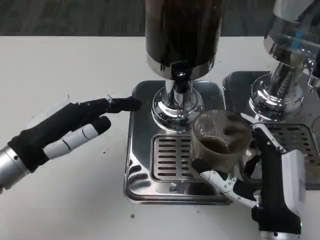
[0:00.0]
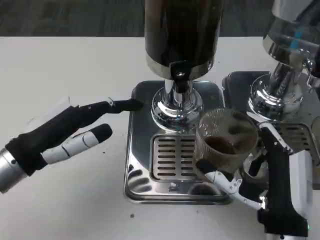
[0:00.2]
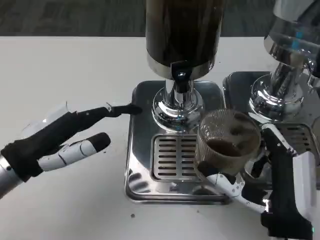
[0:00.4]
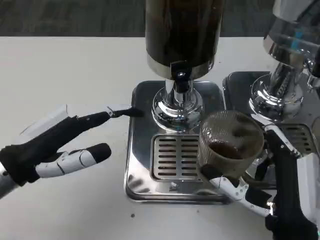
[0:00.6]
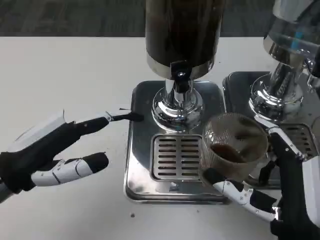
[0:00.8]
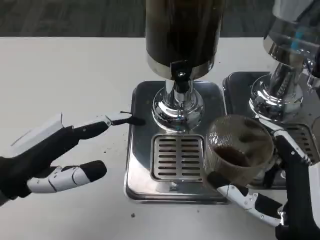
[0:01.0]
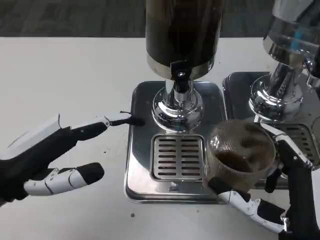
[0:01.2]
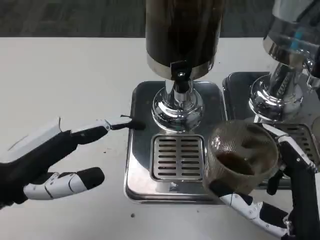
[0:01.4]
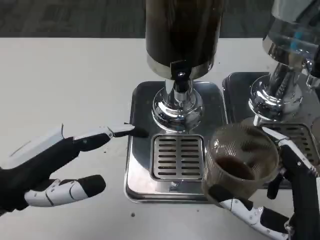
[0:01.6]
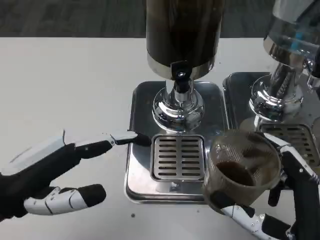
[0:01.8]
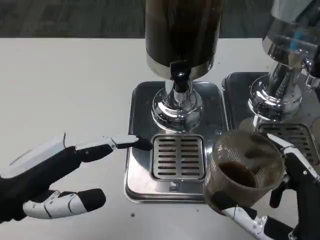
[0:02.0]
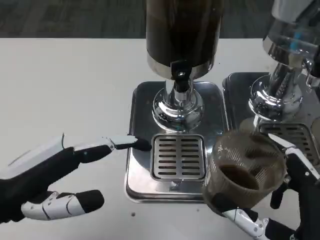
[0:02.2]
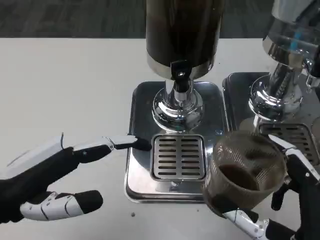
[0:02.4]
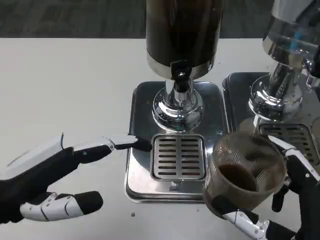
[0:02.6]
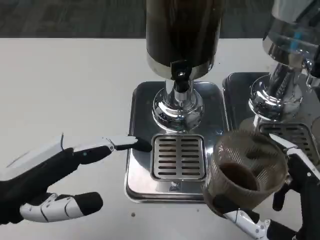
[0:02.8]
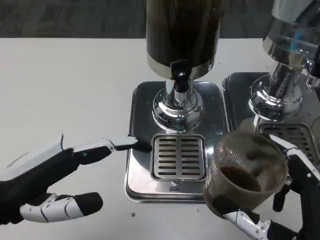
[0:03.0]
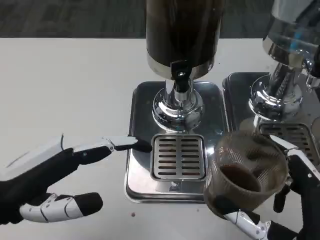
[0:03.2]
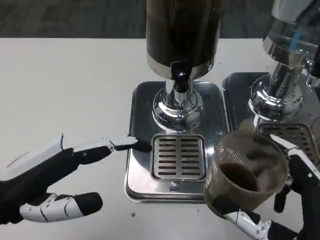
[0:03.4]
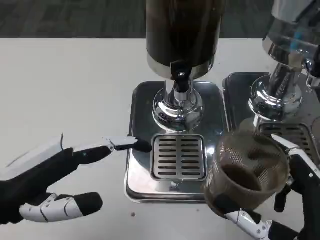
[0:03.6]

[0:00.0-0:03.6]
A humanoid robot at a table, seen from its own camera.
Task of the whole recording: Grasp the cup under the faucet to collect the drink, then remove the cup.
0:00.0 to 0:01.8: The hands both shift backward by some 5 cm.
0:01.8 to 0:03.6: The hands move only a little.

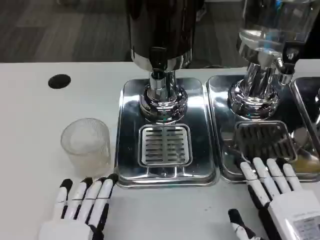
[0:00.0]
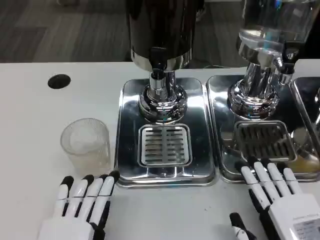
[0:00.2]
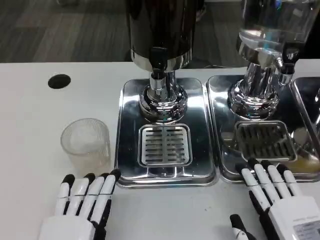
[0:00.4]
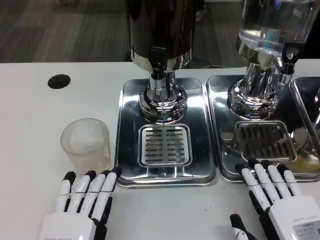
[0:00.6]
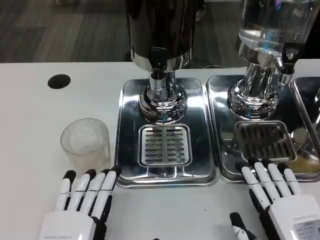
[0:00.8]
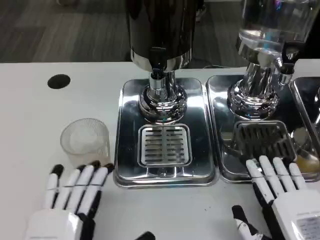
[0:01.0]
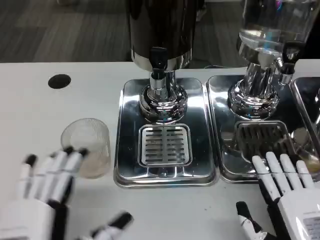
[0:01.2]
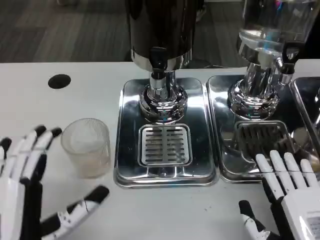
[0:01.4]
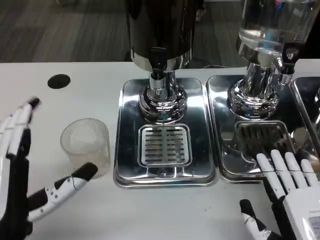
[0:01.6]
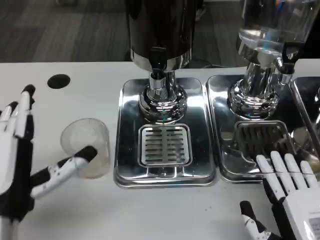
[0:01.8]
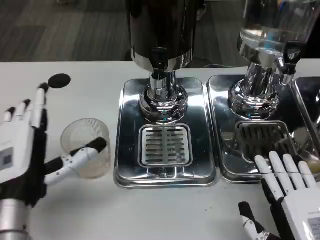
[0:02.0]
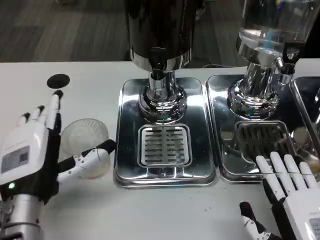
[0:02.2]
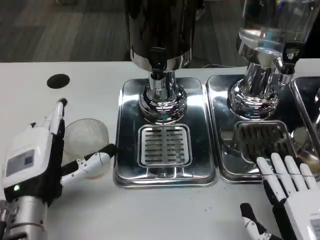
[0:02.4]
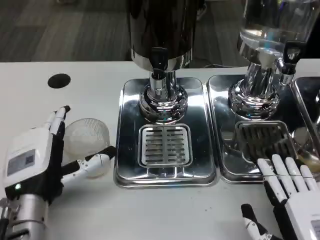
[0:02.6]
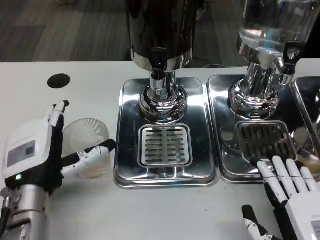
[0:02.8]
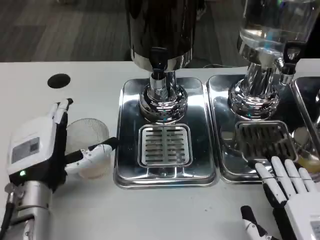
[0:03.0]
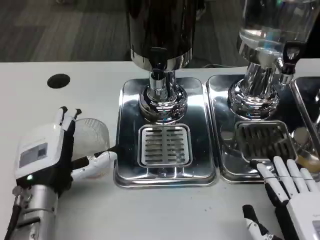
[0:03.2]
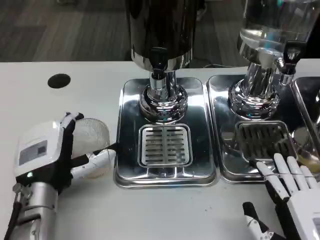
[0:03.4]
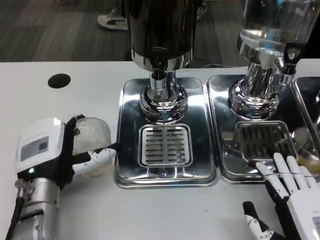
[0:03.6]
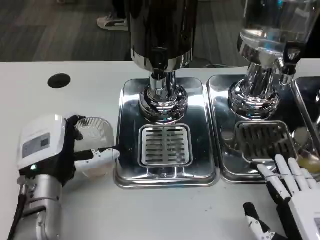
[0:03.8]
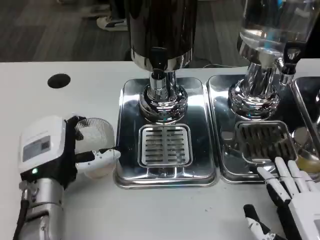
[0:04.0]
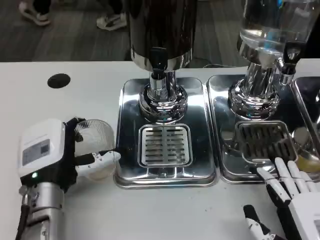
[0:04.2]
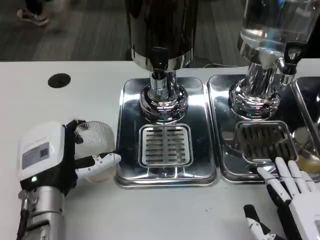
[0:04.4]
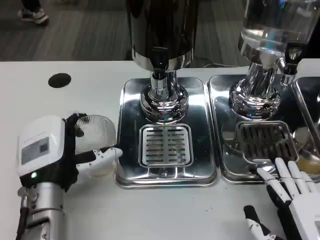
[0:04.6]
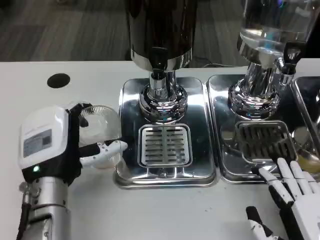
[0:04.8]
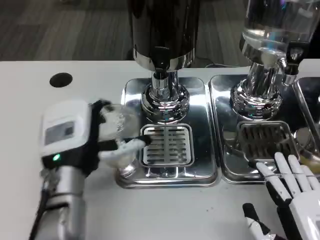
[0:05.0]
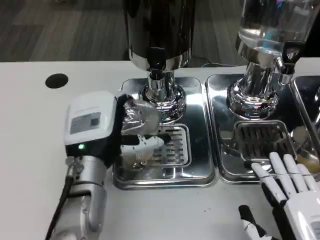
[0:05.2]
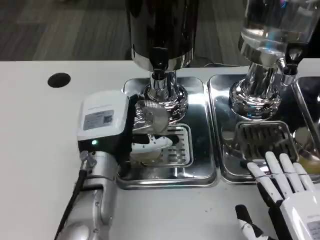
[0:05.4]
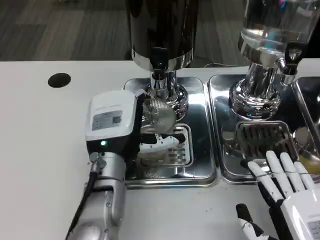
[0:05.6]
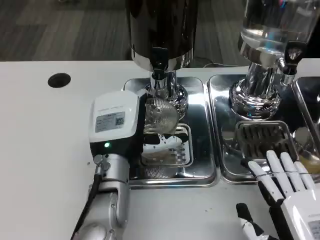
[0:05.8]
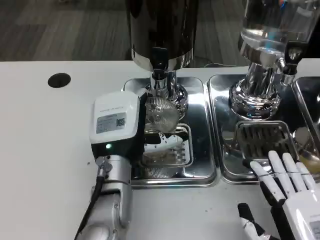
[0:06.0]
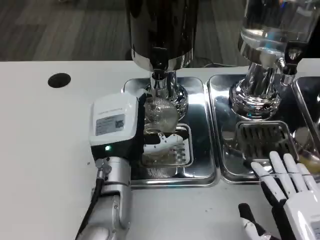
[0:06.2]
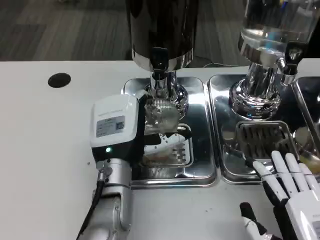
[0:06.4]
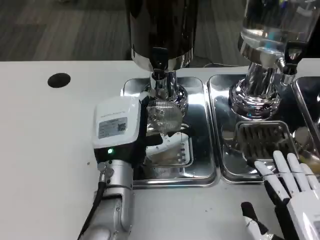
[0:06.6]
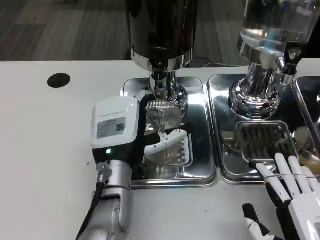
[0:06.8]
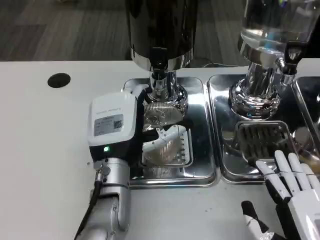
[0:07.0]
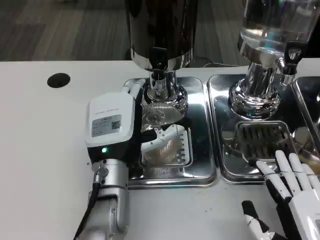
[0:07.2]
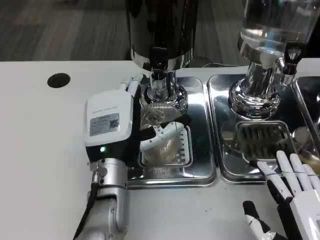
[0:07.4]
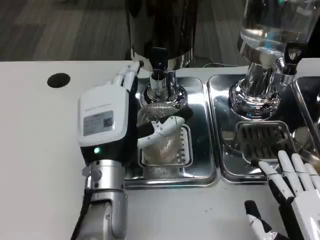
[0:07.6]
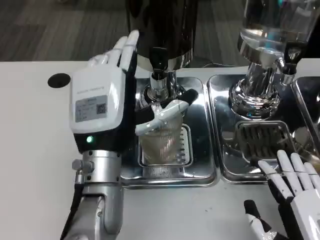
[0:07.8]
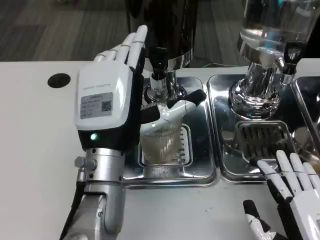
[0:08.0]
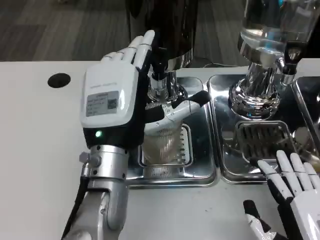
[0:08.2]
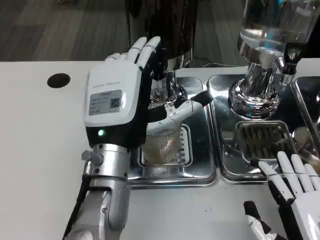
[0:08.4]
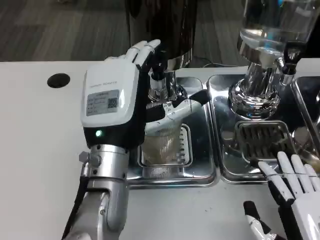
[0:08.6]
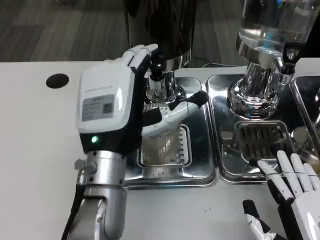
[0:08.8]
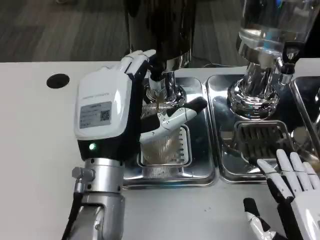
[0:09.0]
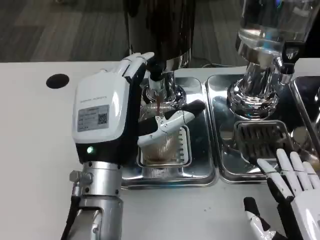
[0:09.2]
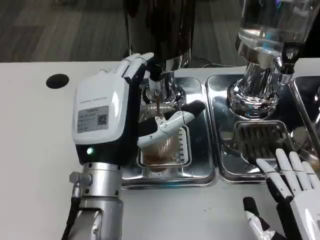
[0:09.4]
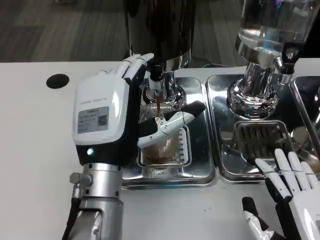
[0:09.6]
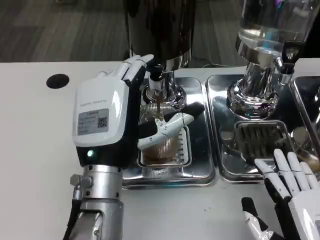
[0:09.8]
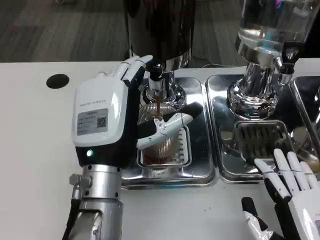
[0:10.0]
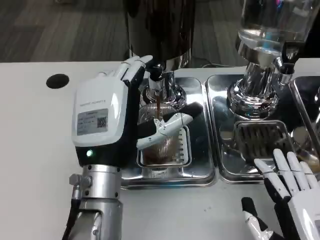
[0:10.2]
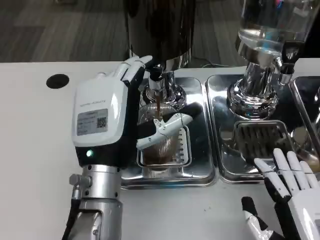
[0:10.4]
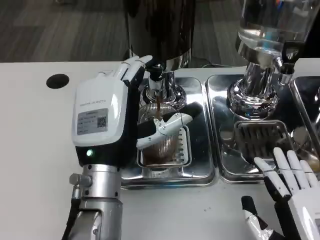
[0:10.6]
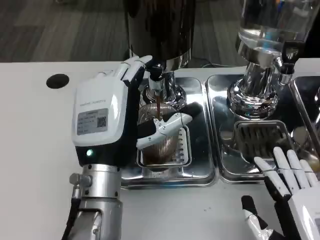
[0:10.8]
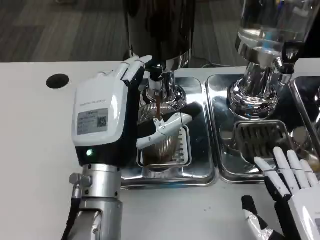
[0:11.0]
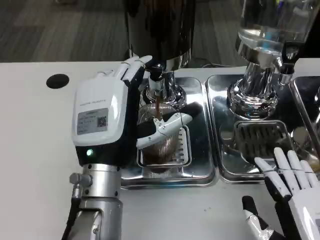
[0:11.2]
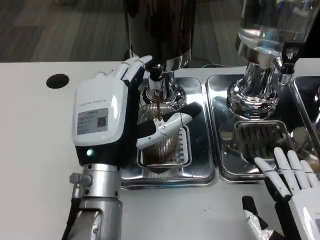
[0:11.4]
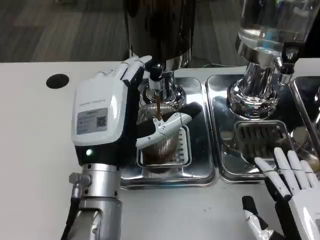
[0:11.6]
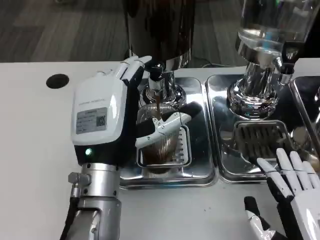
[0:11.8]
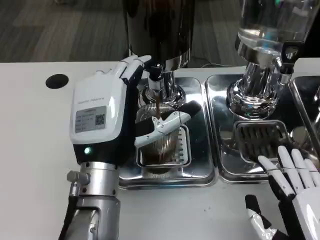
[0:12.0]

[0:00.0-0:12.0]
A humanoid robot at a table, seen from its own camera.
Task of the whole recording: Grasp the cup under the faucet to collect the drink, then remove the cup.
0:00.0 to 0:01.6: The left hand moves forward, upward and to the left, roughly 10 cm.
0:01.6 to 0:03.0: The left hand shifts approximately 10 cm forward.
0:03.0 to 0:04.4: The hands make only small movements.
0:04.4 to 0:06.0: The left hand travels to the right by some 10 cm.
0:06.0 to 0:07.6: The hands stay close to where they were, moving slightly.
0:07.6 to 0:09.0: The hands make only small movements.
0:09.0 to 0:12.0: Both hands stay put.

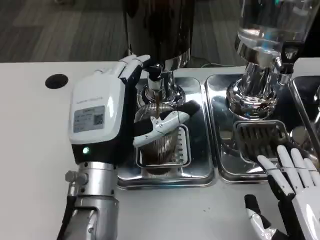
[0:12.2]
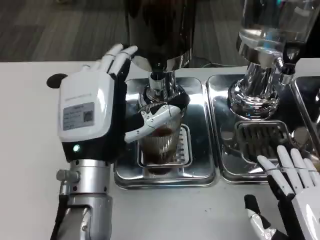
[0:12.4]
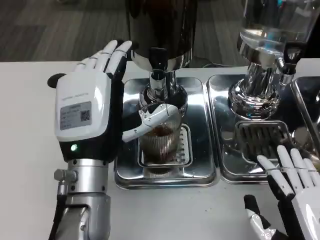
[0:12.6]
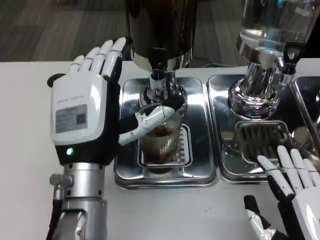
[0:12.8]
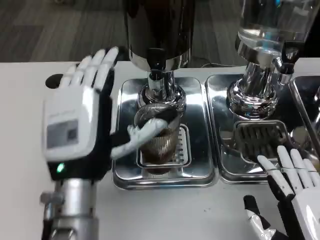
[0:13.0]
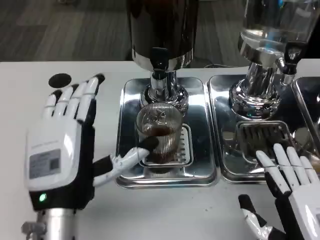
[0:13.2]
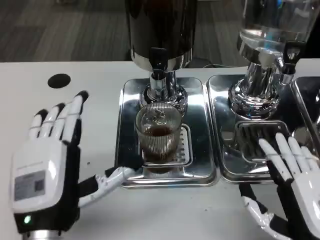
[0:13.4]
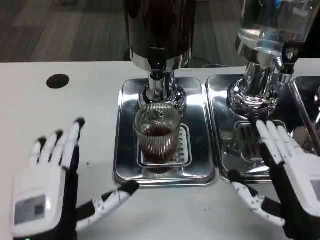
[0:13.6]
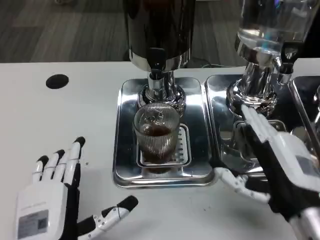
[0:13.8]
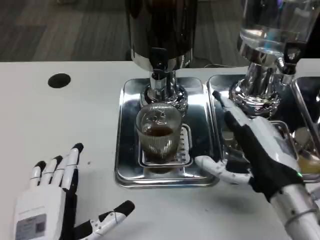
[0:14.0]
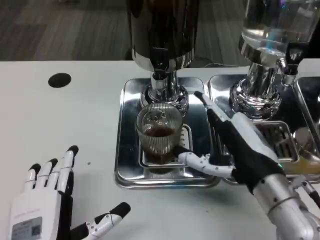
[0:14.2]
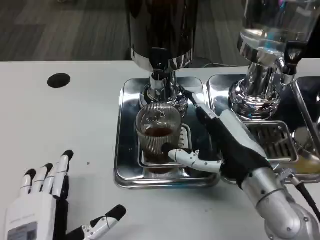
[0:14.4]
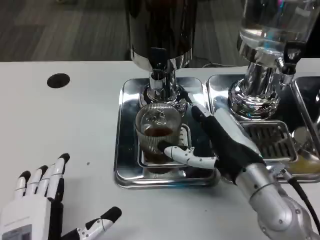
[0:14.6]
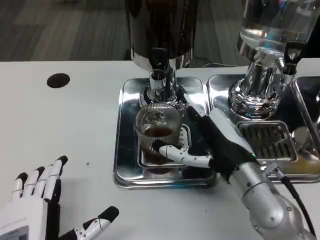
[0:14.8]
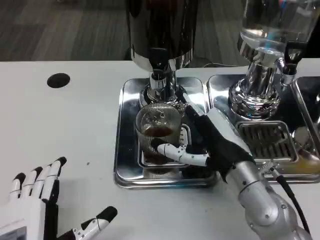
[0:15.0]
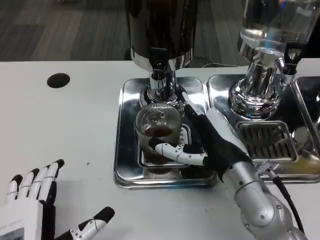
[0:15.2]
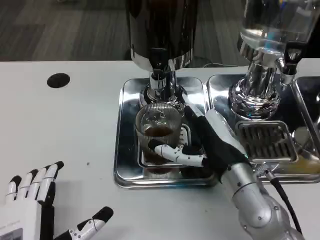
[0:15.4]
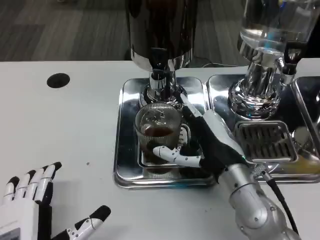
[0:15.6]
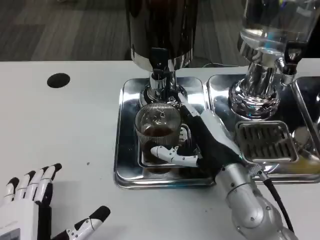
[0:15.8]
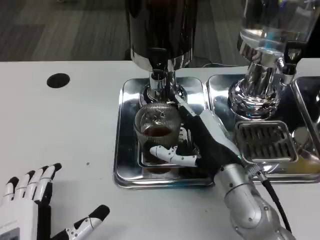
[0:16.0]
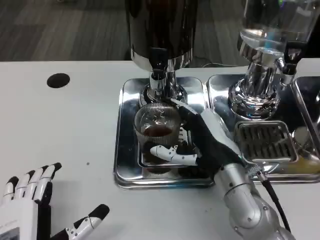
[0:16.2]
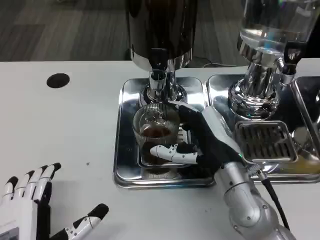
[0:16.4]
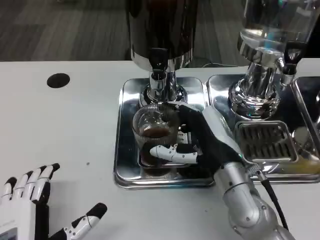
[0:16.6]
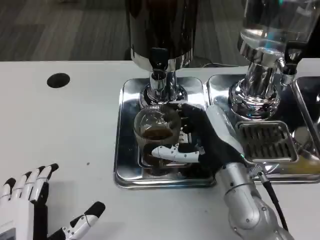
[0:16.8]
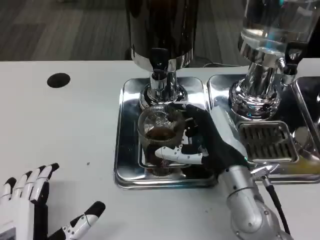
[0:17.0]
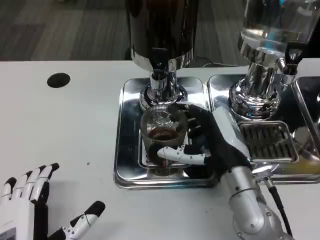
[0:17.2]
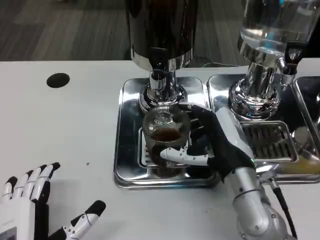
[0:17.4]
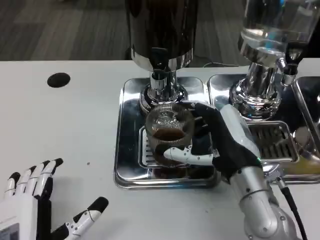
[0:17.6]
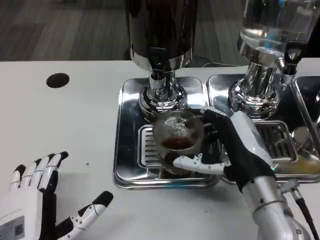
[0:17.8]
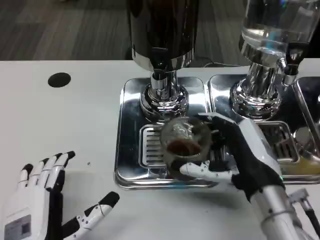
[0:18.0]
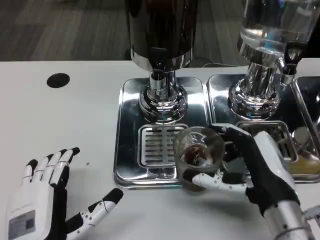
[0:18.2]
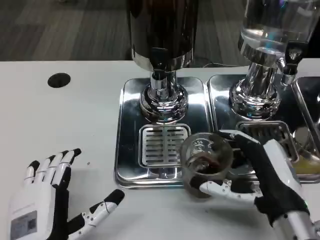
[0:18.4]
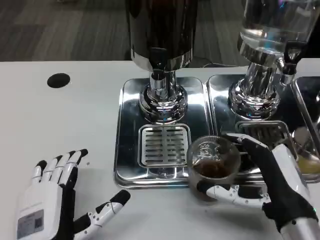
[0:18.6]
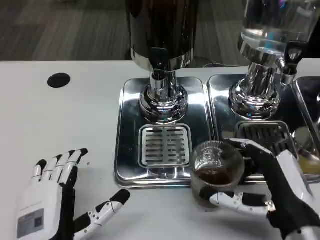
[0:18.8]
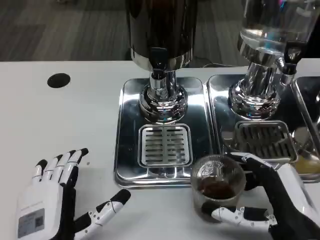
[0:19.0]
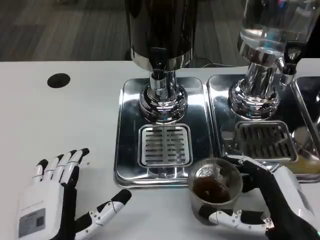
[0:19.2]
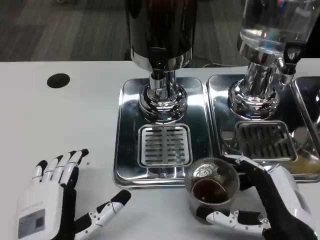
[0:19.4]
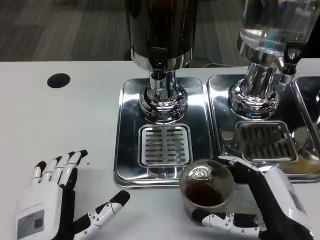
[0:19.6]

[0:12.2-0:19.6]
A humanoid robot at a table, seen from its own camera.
Task of the whole recording: Grasp the cup under the faucet to collect the drink, then remove the cup.
0:12.2 to 0:13.6: The right hand moves about 5 cm; the left hand goes approximately 15 cm backward, downward and to the left.
0:13.6 to 0:15.2: The right hand travels forward and to the left by roughly 15 cm.
0:15.2 to 0:16.6: The hands move only a little.
0:16.6 to 0:18.2: The right hand shifts some 10 cm backward and to the right.
0:18.2 to 0:19.6: The right hand changes place by some 5 cm.
